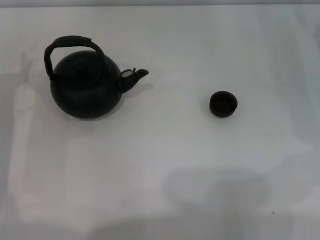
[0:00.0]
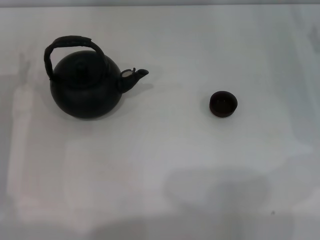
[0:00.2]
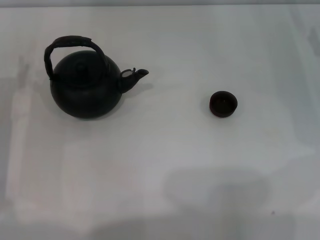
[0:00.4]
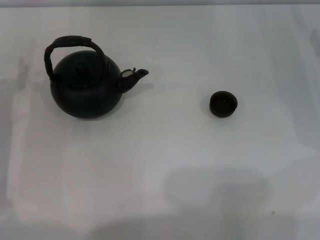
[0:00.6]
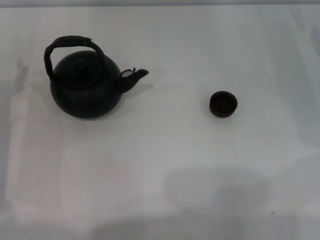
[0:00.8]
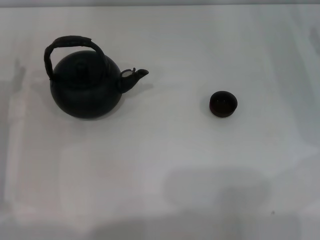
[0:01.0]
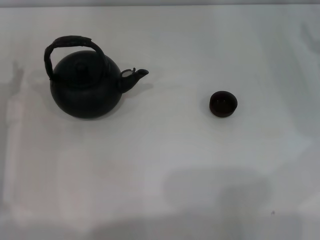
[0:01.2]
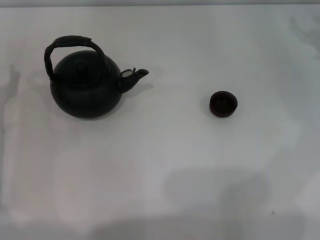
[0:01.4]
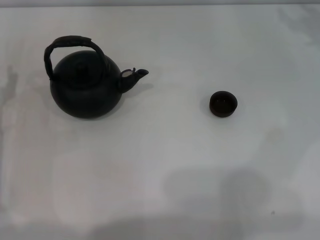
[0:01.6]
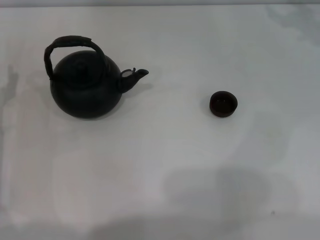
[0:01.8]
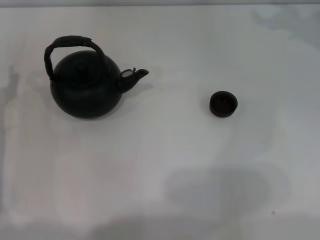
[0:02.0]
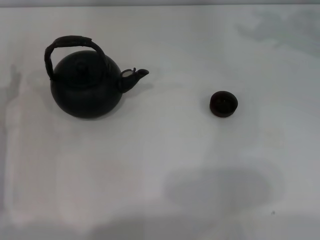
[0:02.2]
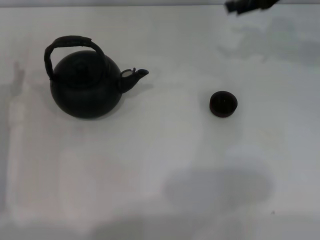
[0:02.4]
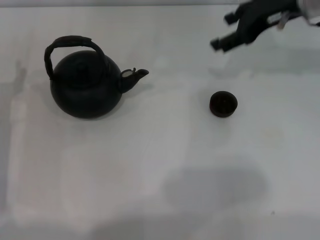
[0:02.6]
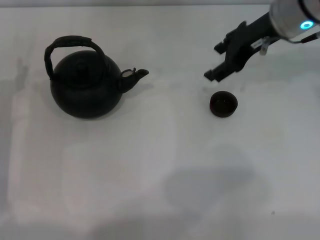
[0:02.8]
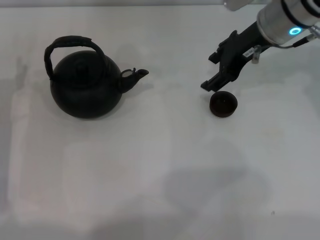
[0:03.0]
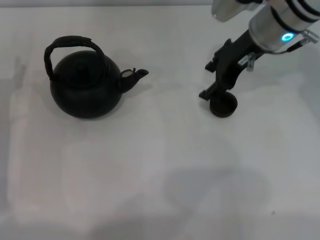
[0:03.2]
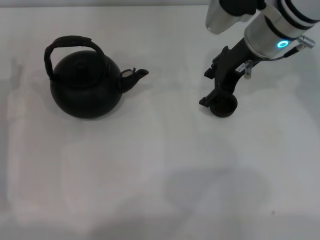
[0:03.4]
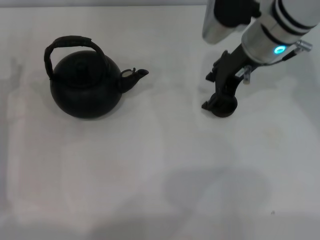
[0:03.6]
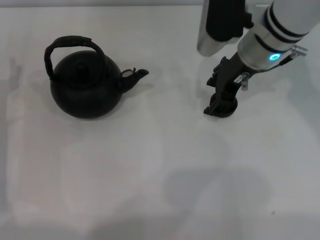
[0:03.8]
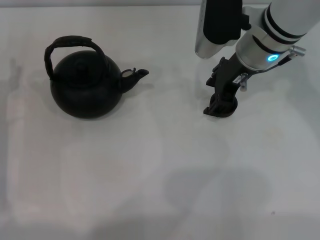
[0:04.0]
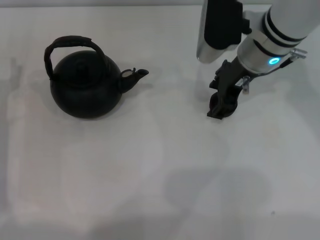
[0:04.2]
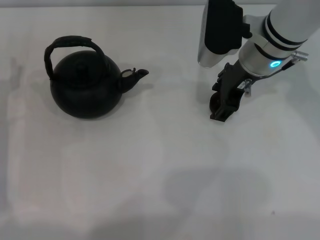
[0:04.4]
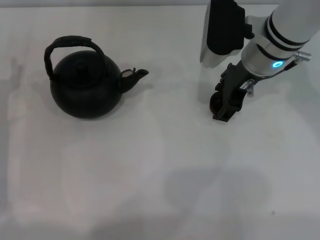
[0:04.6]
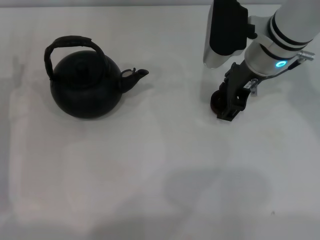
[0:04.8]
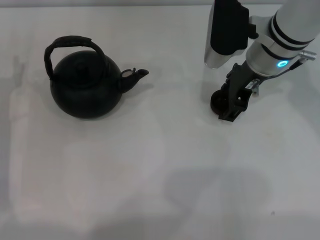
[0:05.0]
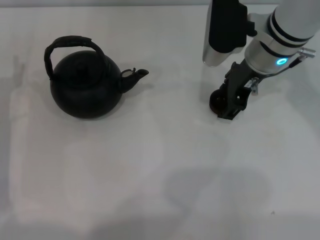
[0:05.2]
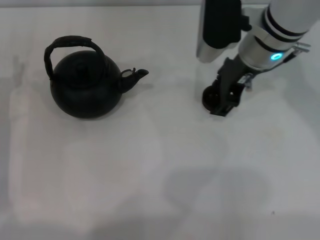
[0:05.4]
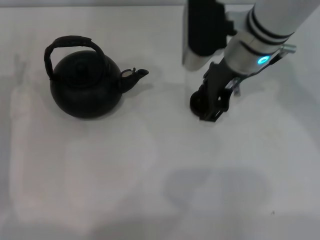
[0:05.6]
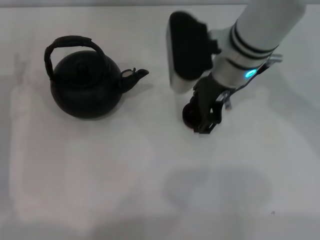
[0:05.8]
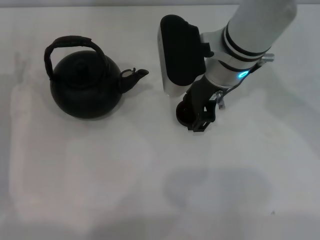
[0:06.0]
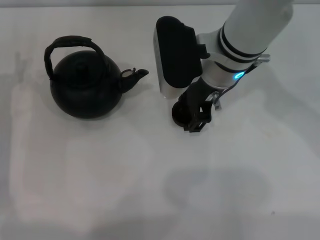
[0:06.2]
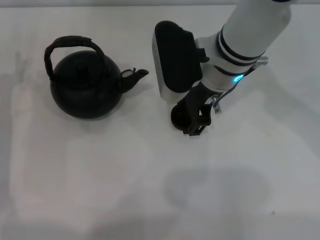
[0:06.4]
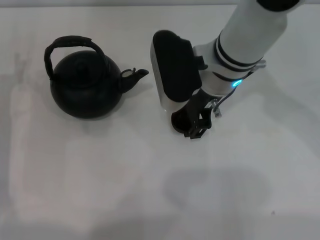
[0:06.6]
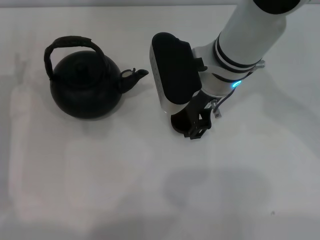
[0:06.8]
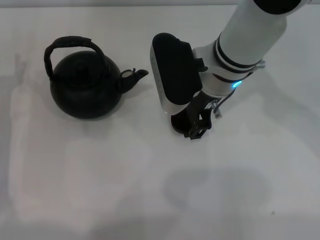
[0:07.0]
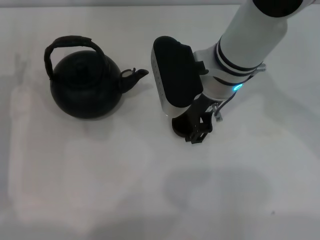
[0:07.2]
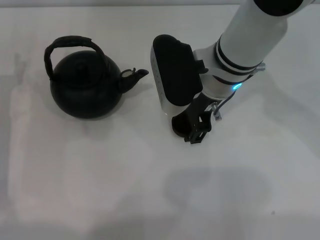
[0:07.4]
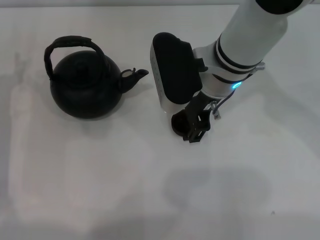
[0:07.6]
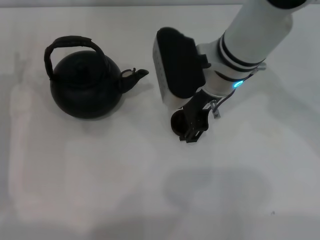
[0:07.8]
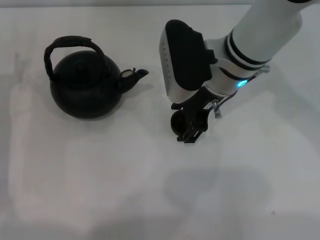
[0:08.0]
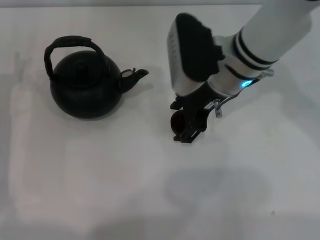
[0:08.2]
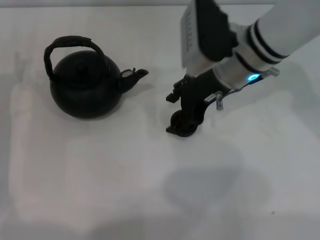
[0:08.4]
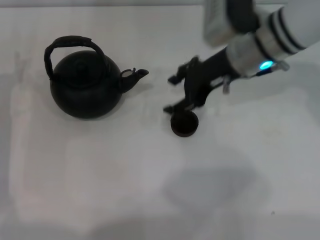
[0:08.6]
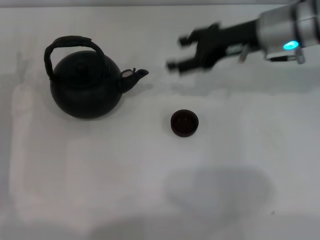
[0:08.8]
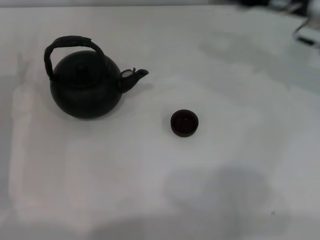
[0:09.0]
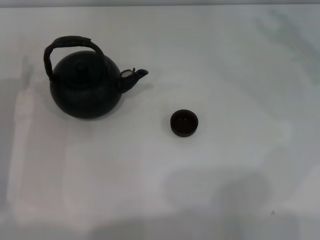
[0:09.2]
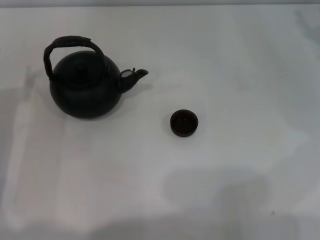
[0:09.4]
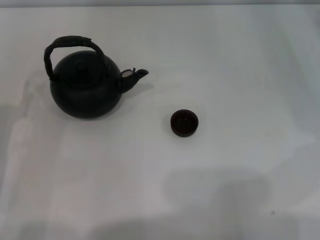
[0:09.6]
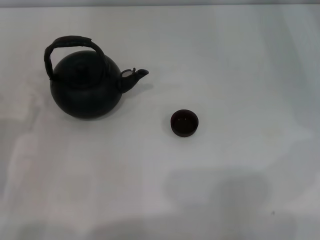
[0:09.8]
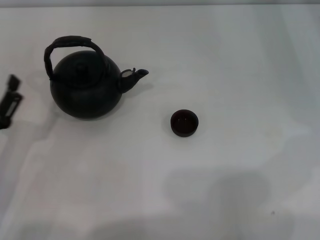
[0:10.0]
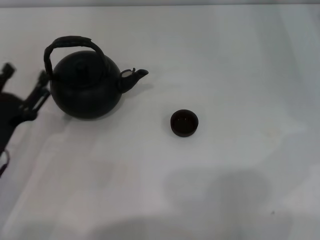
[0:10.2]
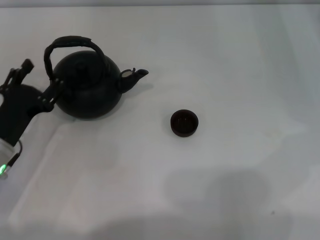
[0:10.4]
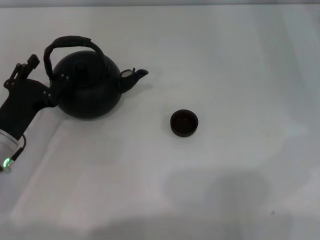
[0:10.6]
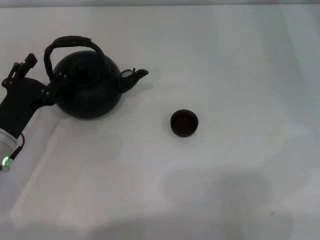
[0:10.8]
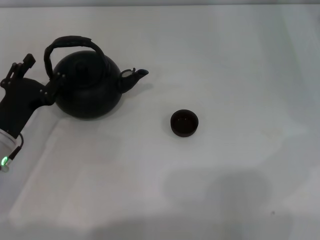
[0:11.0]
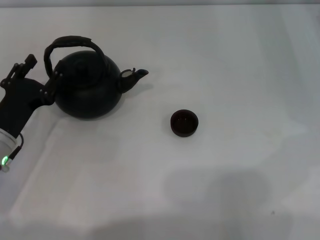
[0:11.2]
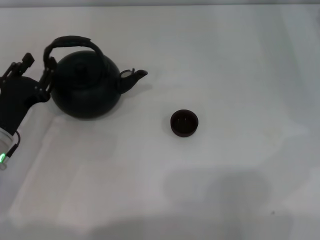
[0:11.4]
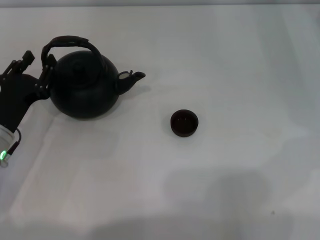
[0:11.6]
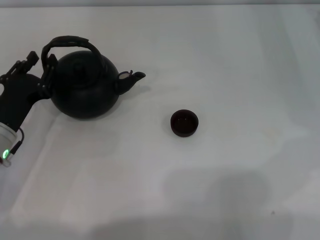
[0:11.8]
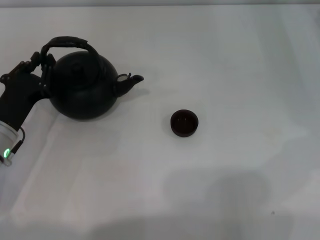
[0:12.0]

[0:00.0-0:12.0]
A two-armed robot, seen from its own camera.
Task of the whole recording: Grasp the handle of the teapot with one hand and pour tea into the teacup.
Step, 0:00.0 to 0:05.4: Pick up the teacup with the right gripper.
Step, 0:05.6 to 0:08.2: Place the teacup in the center of view with the right gripper.
0:01.6 to 0:03.0: The right gripper heads to the left, covering approximately 20 cm.
0:03.0 to 0:04.4: There are only small adjustments of the grippers.
0:04.4 to 0:06.0: The right gripper travels to the left by approximately 5 cm.
0:06.0 to 0:07.6: The grippers make only small movements.
0:07.6 to 0:09.0: The right gripper shifts some 20 cm to the right.
0:09.0 to 0:10.4: The left gripper goes roughly 5 cm backward. Meanwhile the right gripper heads to the right and downward, covering roughly 10 cm.
0:10.4 to 0:12.0: The left gripper closes up.

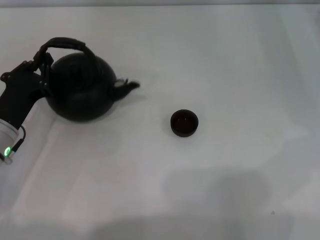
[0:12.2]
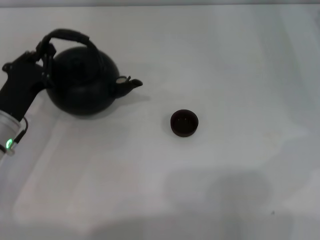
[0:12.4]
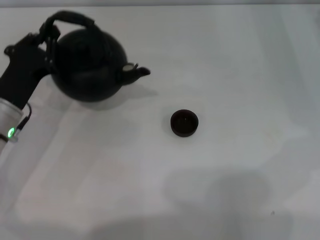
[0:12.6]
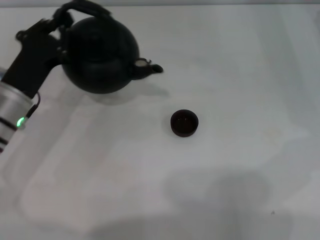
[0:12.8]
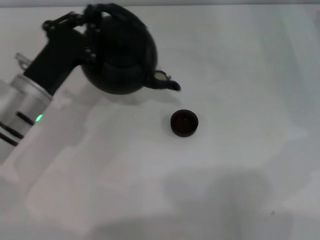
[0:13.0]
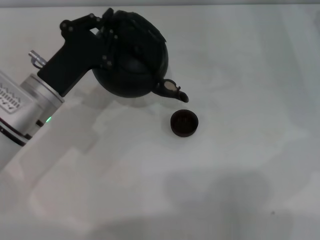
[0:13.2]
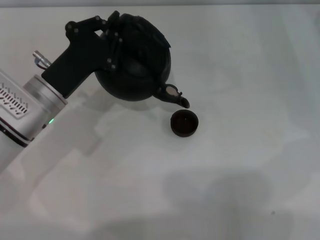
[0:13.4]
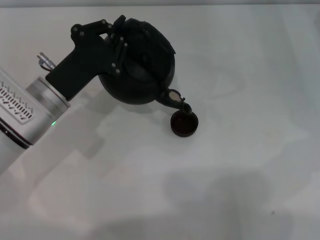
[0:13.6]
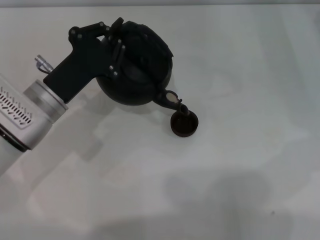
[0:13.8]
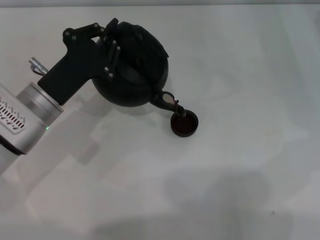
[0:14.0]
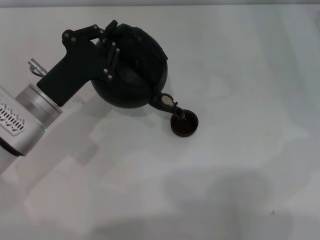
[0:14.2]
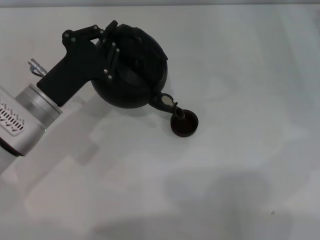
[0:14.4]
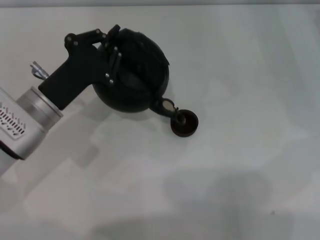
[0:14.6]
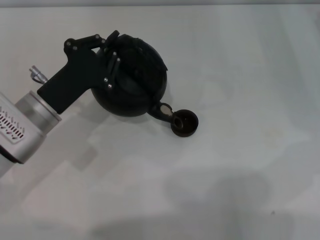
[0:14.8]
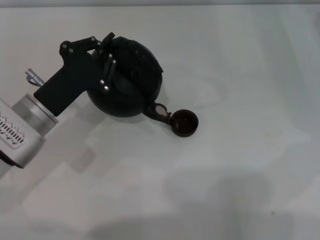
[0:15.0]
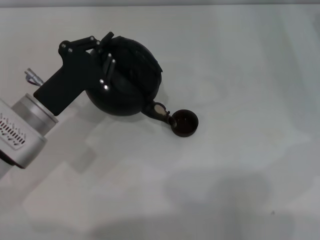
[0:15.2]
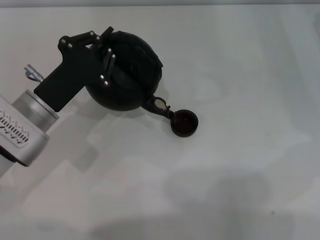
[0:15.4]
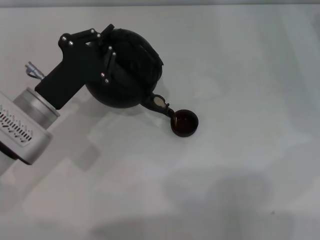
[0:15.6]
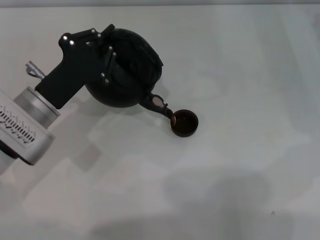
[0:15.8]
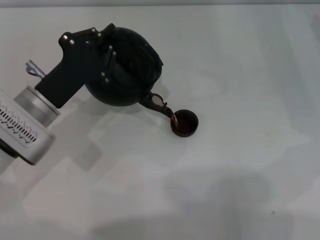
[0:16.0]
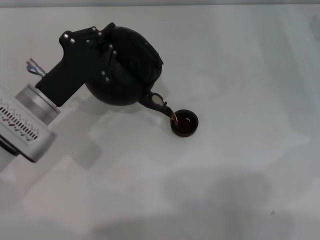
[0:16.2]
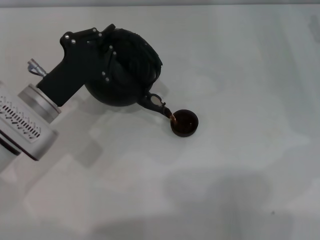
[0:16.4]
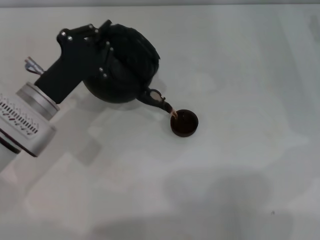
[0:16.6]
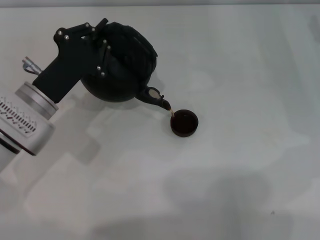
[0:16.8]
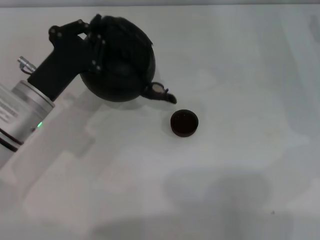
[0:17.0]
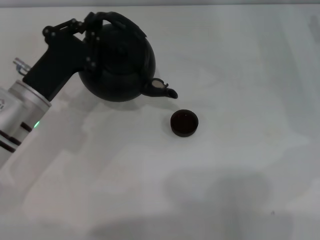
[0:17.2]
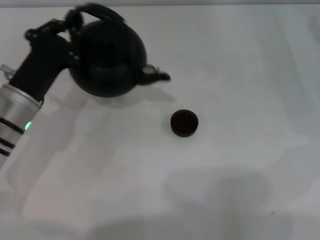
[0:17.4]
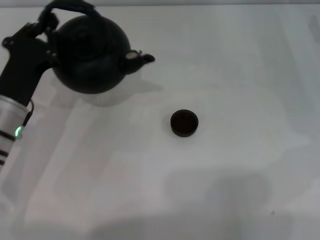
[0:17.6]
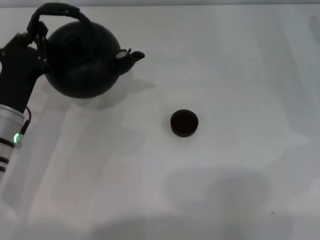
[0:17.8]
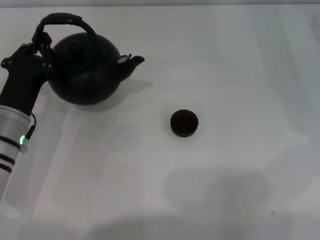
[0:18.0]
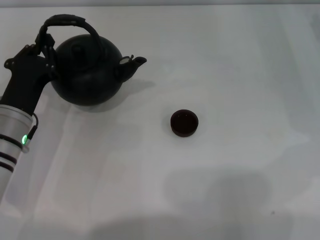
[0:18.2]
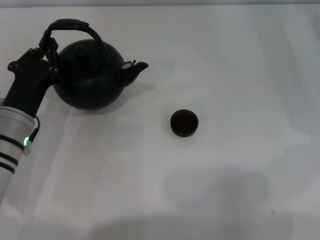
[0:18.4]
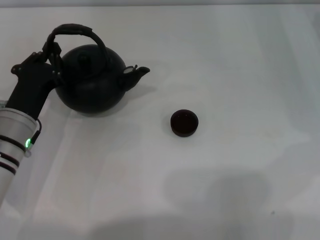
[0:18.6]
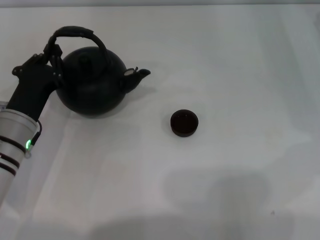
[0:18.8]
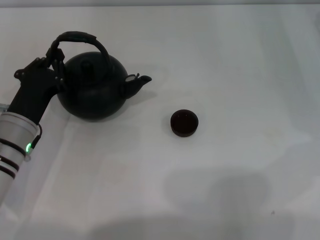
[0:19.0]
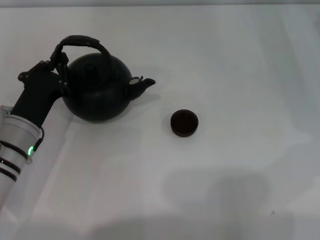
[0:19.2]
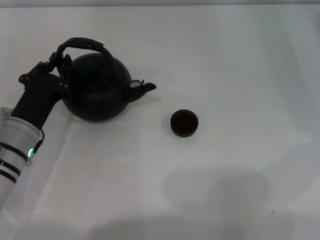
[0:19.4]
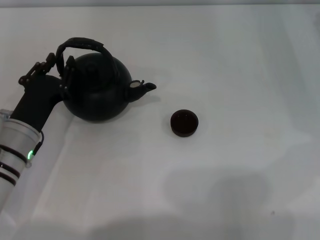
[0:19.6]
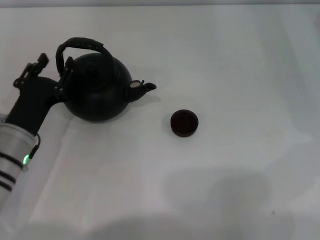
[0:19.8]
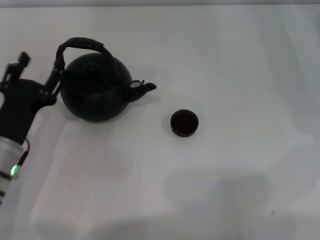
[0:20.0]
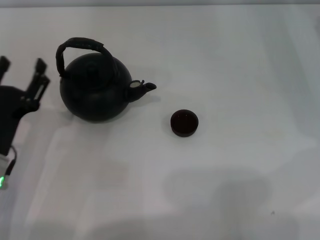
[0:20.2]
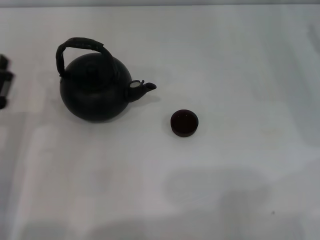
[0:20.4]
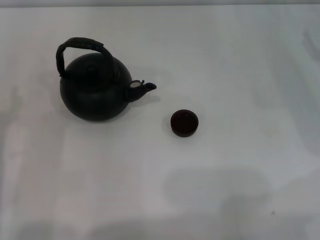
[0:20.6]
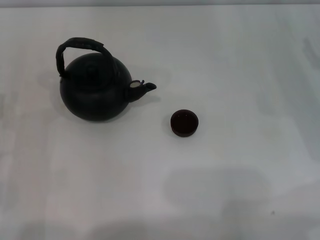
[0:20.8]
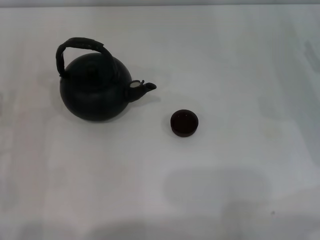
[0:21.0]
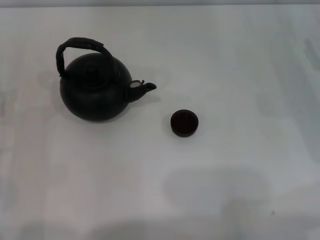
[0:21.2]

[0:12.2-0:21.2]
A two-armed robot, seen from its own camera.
Task of the whole recording: Grasp the handle of the teapot with one hand and pour tea into the teacup.
Step, 0:13.2 to 0:17.2: Pour tea into the teacup with the left gripper.
Step, 0:17.4 to 0:20.0: Put down the teapot with the left gripper.
0:12.2 to 0:13.8: The left gripper is displaced to the right by roughly 5 cm.
0:13.8 to 0:16.6: The grippers move only a little.
0:18.2 to 0:19.8: The left gripper opens.
0:19.8 to 0:21.2: The left gripper shifts approximately 10 cm to the left, and opens.

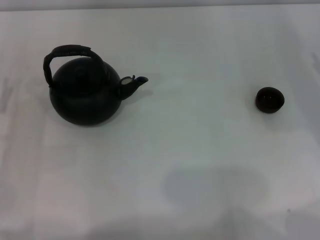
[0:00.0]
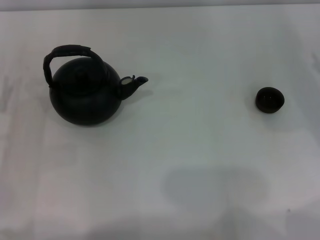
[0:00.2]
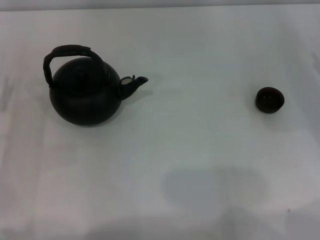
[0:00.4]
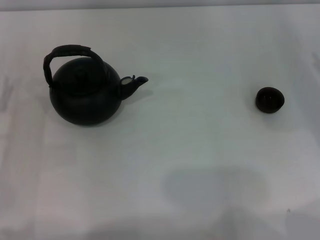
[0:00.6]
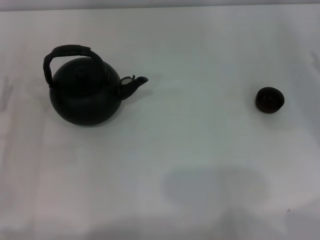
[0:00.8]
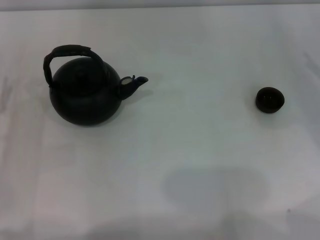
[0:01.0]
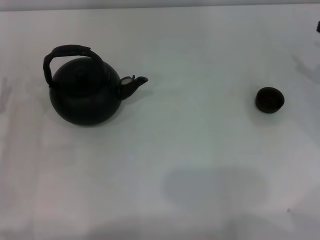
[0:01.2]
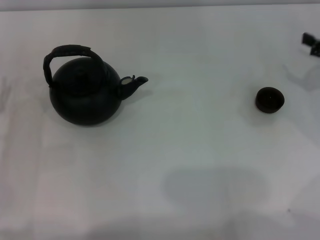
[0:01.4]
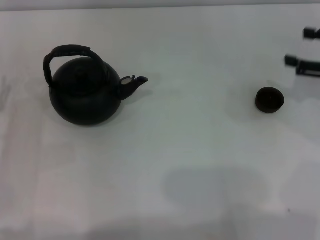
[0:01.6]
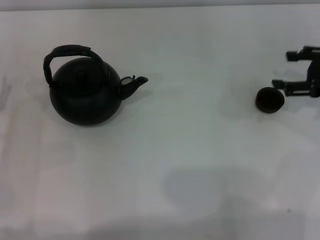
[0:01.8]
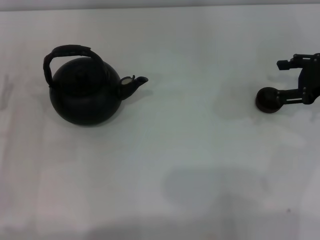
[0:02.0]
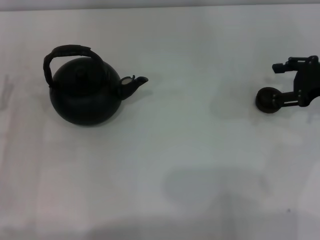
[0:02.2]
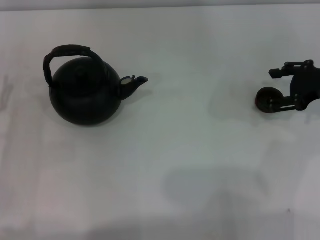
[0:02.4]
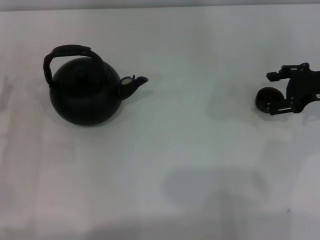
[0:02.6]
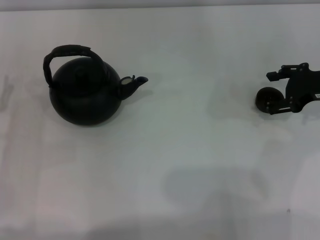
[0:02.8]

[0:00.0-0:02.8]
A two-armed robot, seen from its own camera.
Task of the whole recording: Grasp the handle of the teapot with one hand and pour tea into the teacup.
0:01.4 to 0:02.8: The right gripper shifts some 5 cm to the left.
